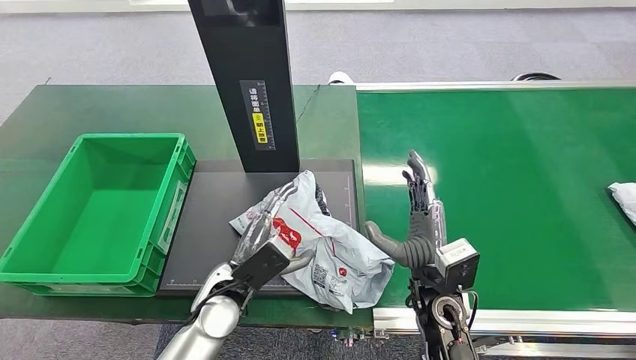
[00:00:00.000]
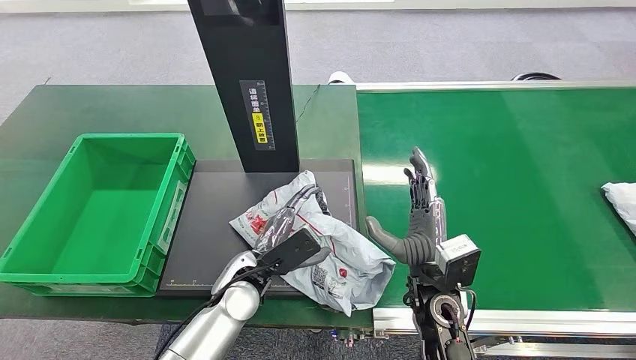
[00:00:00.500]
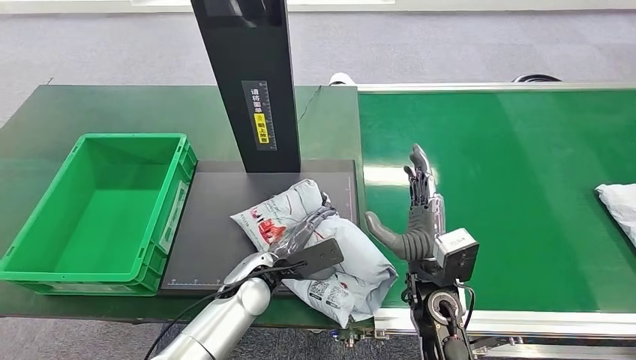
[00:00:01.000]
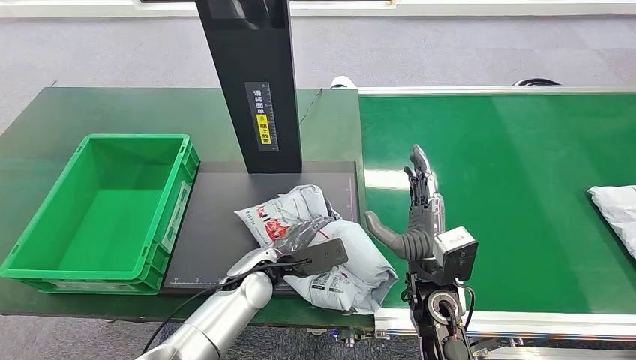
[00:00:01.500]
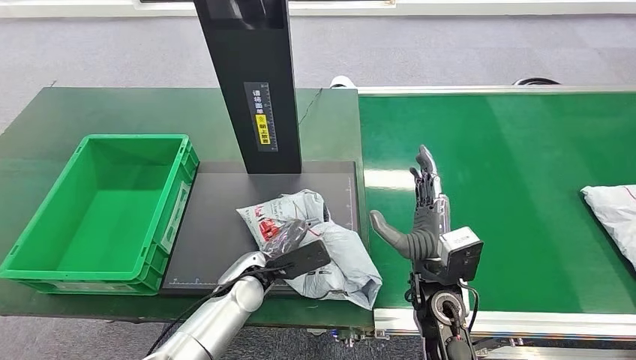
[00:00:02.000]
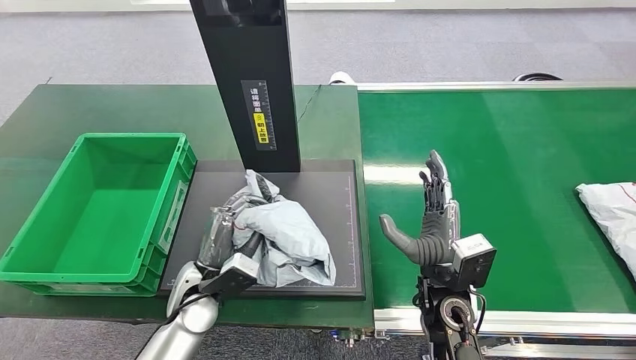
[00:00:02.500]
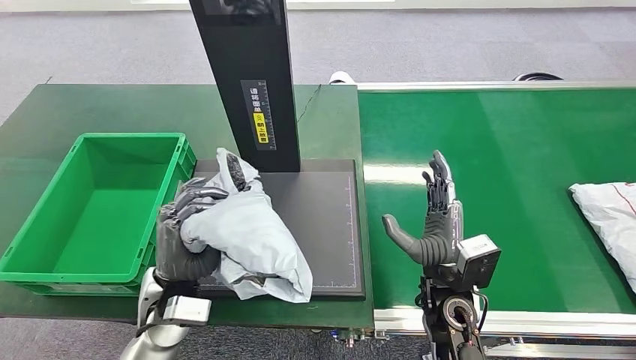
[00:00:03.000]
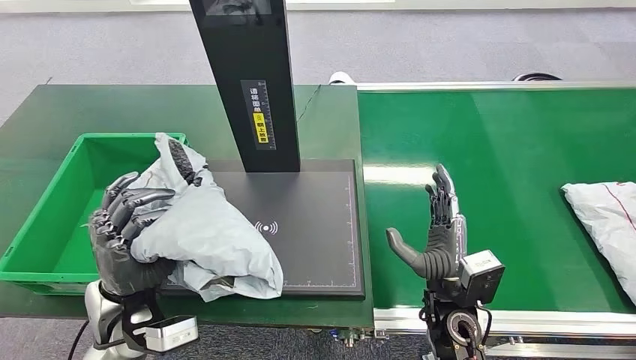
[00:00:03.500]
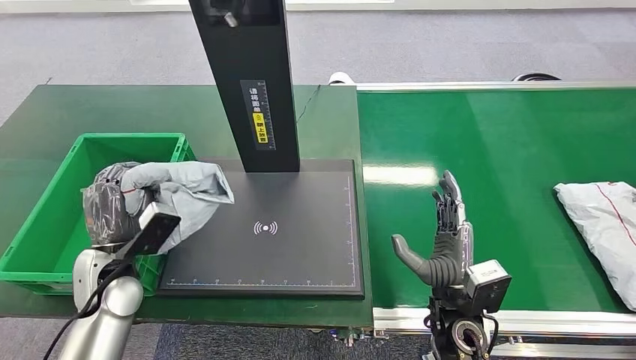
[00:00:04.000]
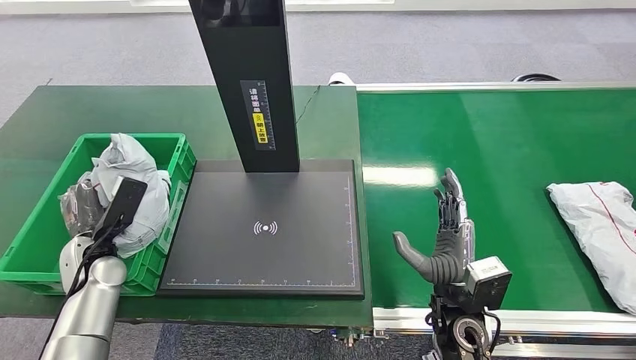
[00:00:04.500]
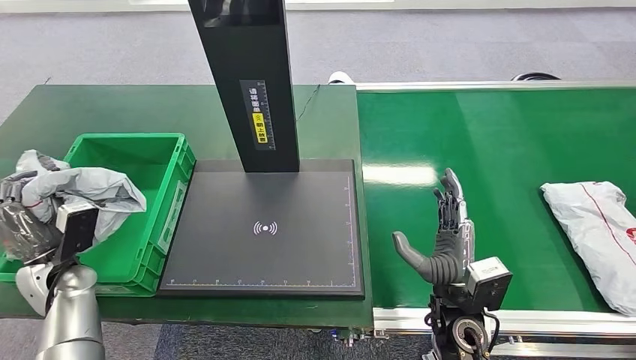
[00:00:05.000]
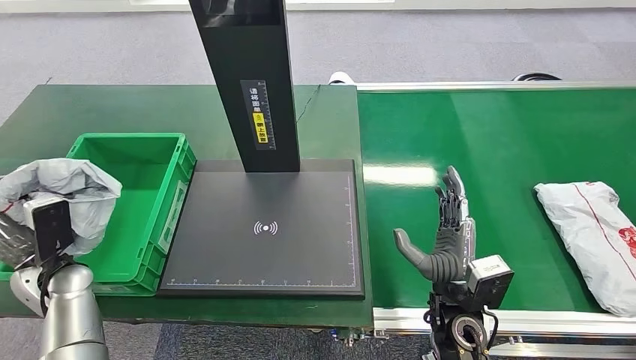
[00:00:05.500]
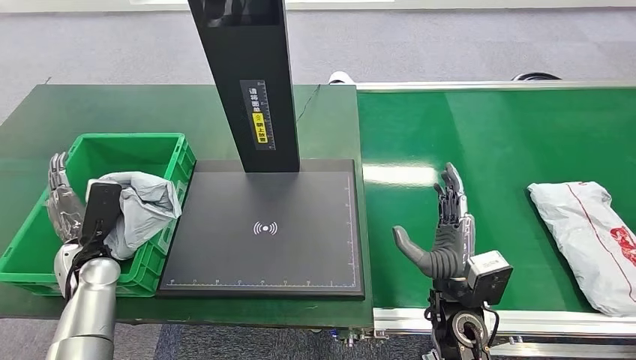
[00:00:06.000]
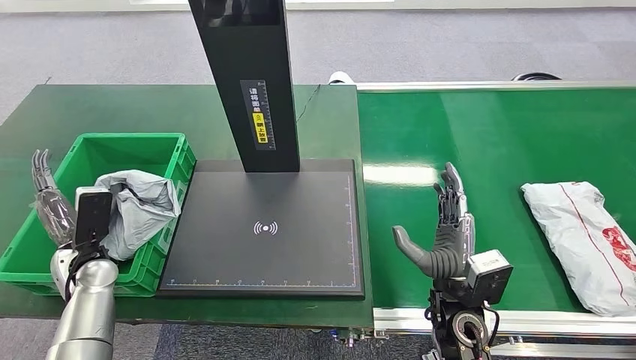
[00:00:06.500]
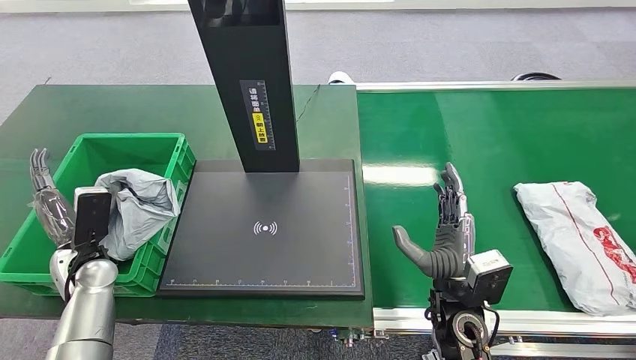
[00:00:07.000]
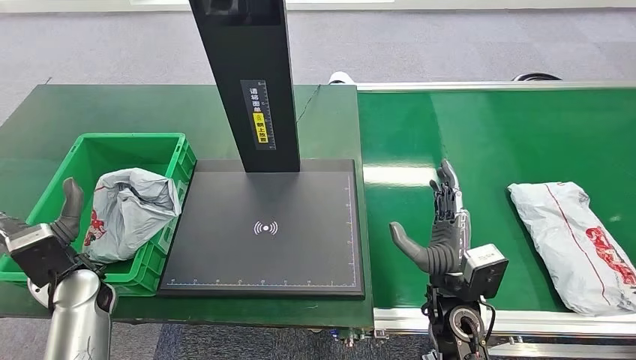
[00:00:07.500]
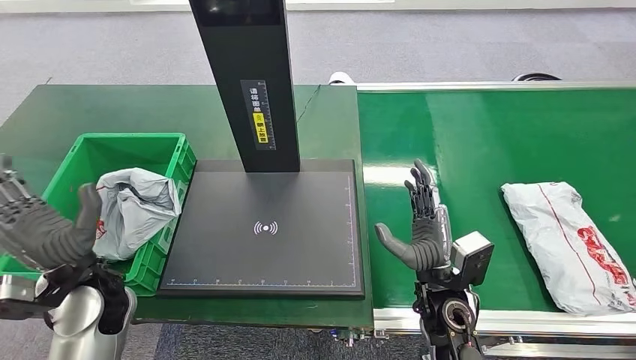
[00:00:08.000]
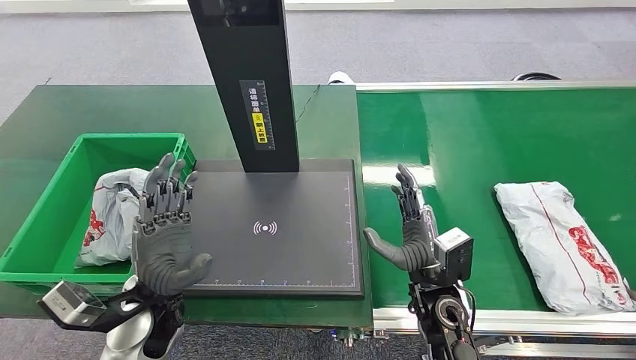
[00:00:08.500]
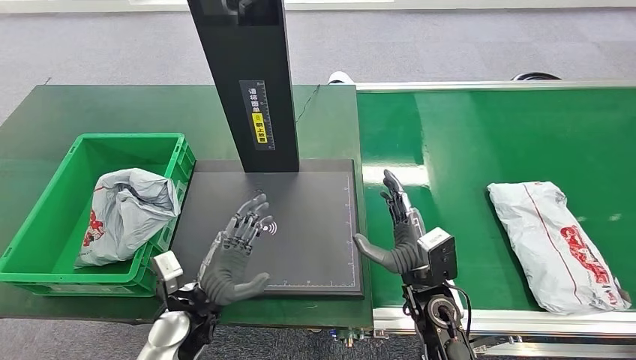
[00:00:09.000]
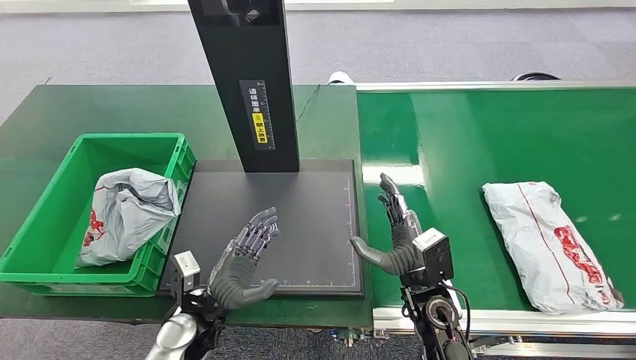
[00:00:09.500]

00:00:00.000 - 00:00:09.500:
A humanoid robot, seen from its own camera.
Task of the whole recording: Weigh the package on the weighing device and place it in the left basket.
Step, 00:00:00.000 - 00:00:02.500: Pick up the package from the inbound machine.
Step, 00:00:03.000 - 00:00:09.500: Place the package into the parcel locker.
00:00:04.000 - 00:00:05.500: The left hand shifts roughly 10 cm to the left.
00:00:07.500 - 00:00:09.500: The left hand goes about 20 cm to the right and downward.
